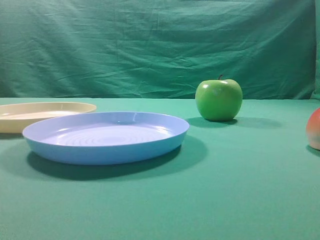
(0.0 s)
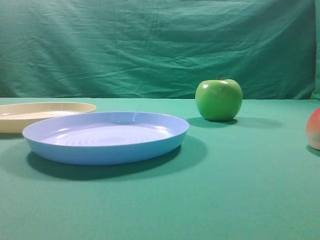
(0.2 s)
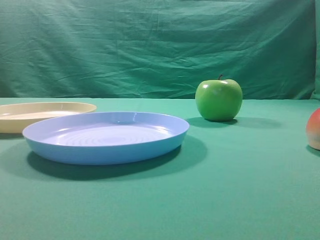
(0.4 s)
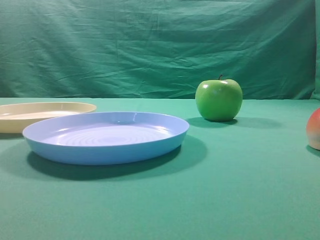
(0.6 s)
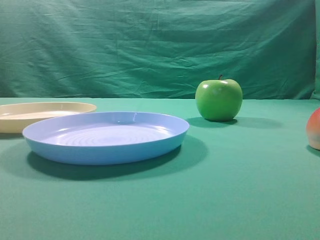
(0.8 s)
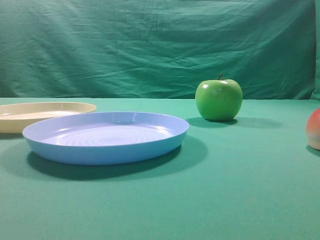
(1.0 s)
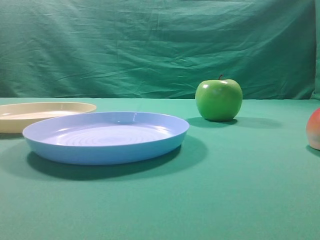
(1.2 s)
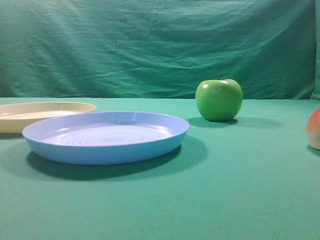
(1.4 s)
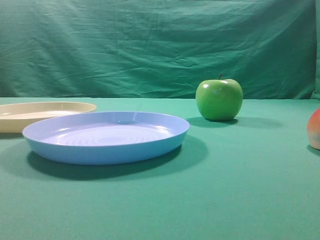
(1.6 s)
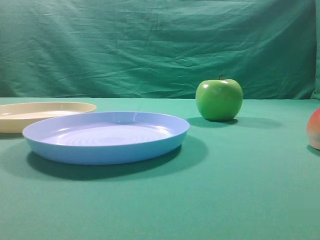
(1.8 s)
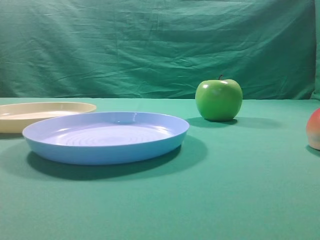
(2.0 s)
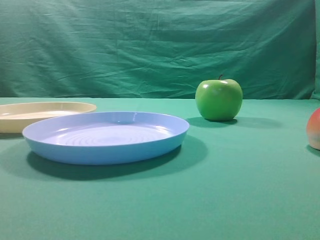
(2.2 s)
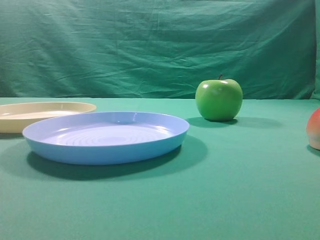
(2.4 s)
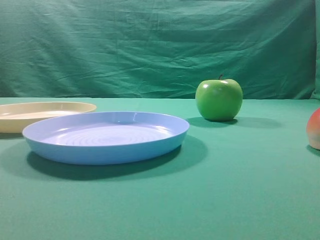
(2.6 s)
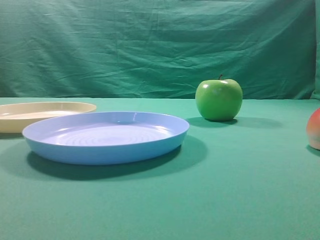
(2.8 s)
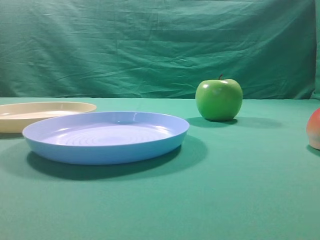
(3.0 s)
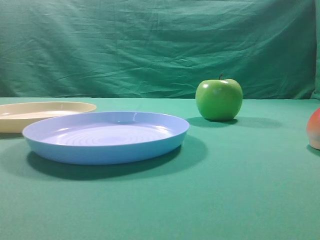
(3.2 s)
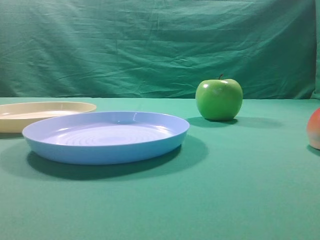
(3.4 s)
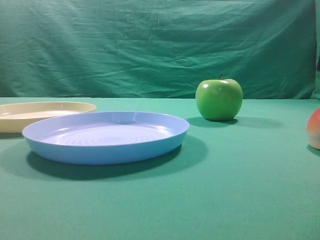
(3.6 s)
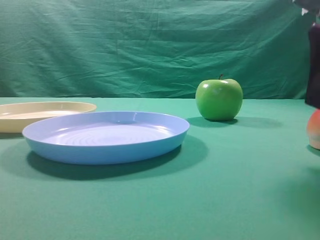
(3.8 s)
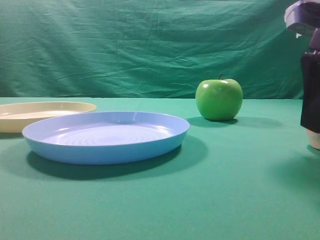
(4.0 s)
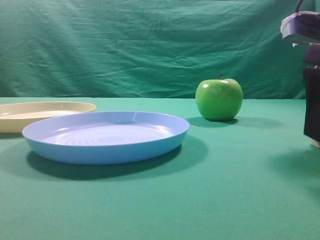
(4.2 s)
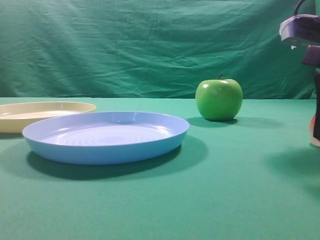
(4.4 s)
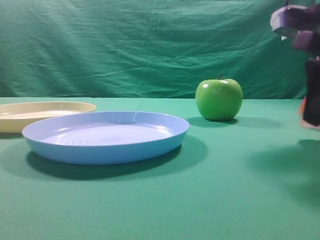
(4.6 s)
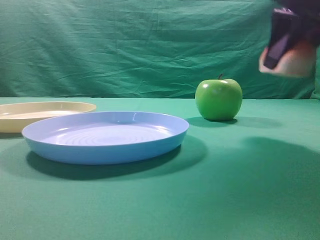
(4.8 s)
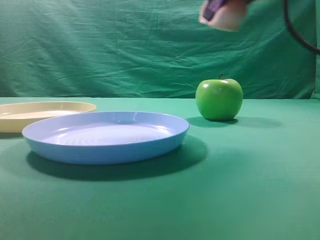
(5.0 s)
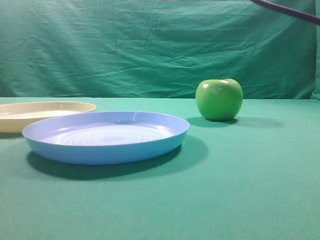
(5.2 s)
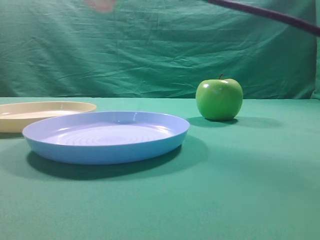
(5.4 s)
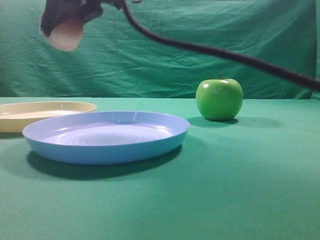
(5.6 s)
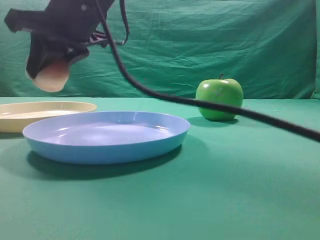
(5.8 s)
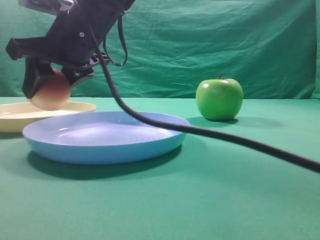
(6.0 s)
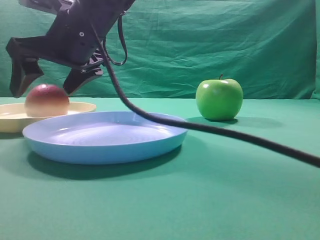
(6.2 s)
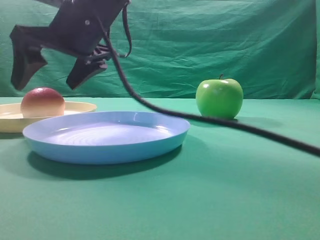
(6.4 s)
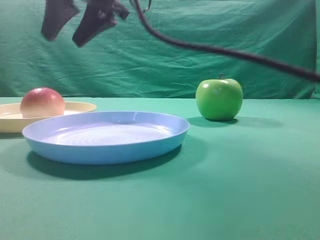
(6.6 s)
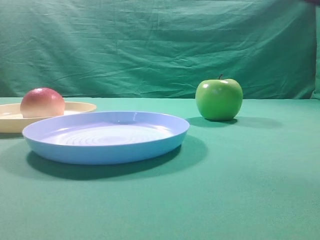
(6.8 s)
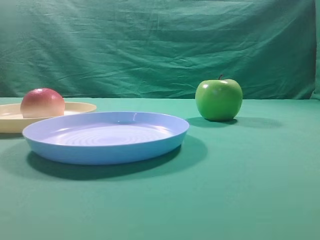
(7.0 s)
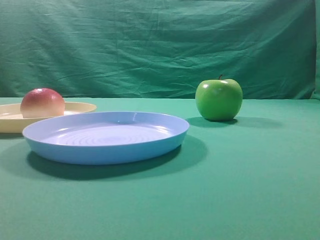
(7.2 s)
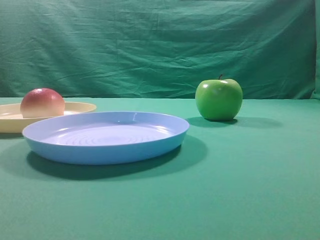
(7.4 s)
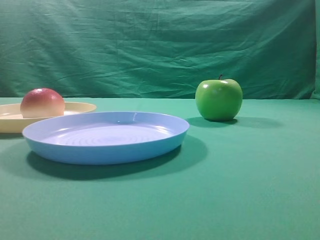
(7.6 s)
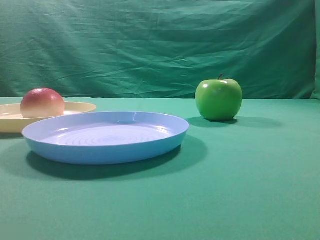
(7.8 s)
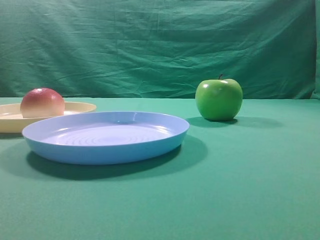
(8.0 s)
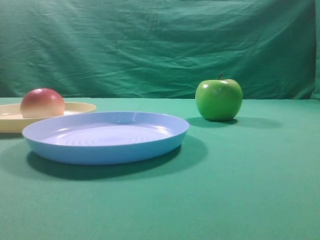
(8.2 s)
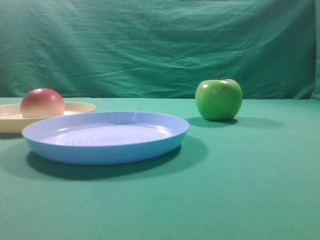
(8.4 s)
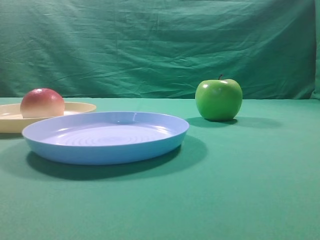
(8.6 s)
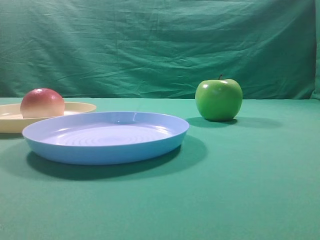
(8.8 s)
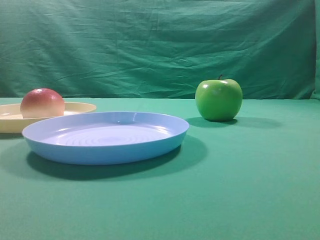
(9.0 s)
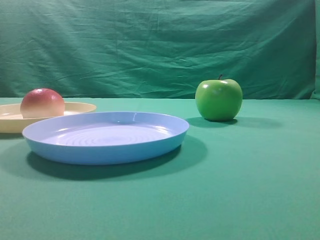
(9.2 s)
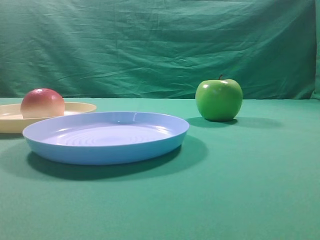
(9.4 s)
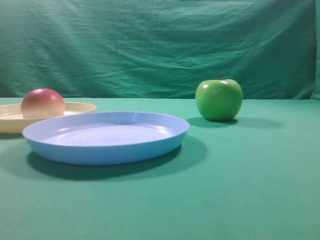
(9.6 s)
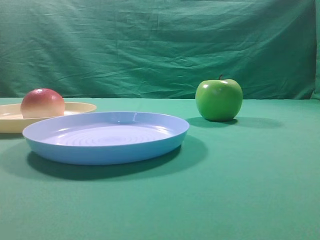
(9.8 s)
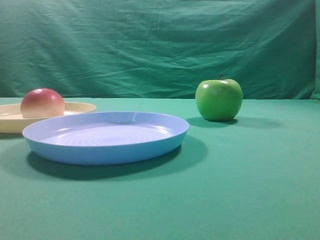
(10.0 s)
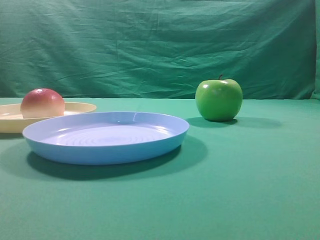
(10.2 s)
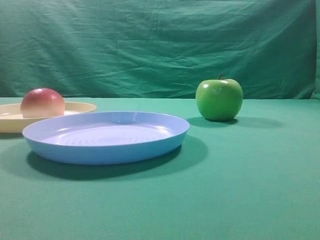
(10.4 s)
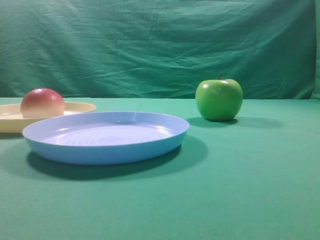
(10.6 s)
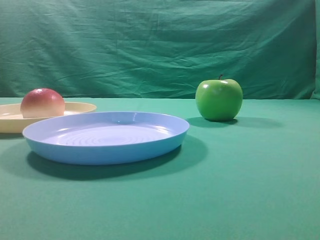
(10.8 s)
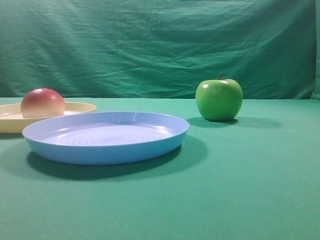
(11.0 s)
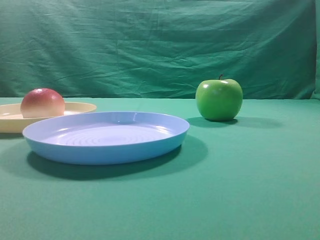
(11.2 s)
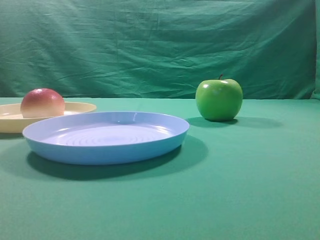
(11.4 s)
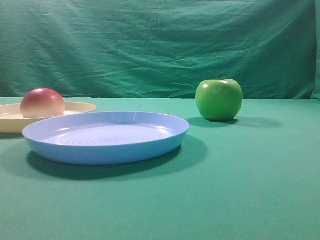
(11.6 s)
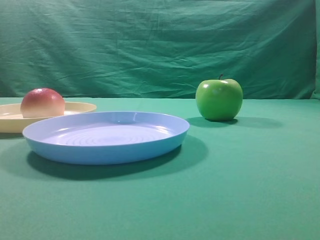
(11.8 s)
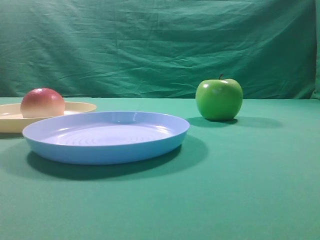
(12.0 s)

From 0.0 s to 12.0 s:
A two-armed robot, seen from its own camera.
Step, from 4.8 s to 6.4 s: Place the picked object on the yellow plate.
